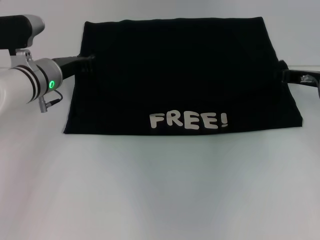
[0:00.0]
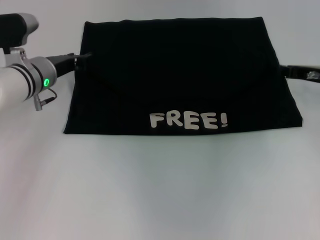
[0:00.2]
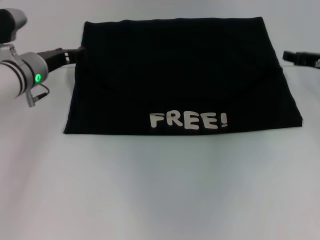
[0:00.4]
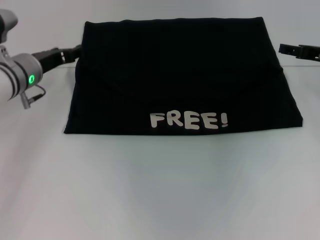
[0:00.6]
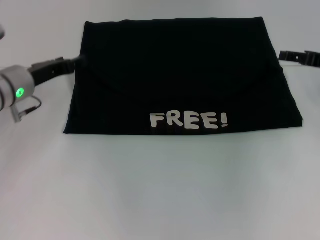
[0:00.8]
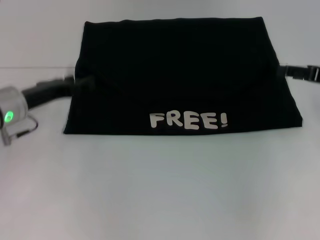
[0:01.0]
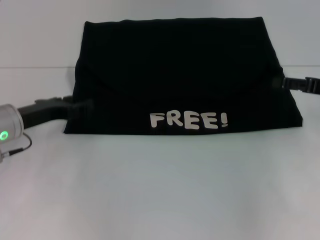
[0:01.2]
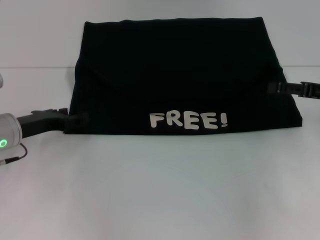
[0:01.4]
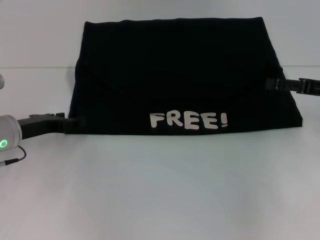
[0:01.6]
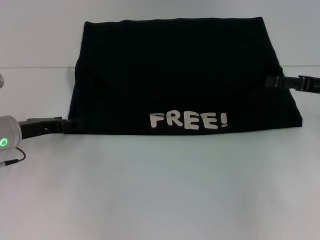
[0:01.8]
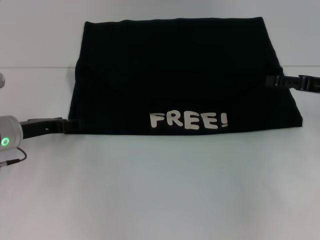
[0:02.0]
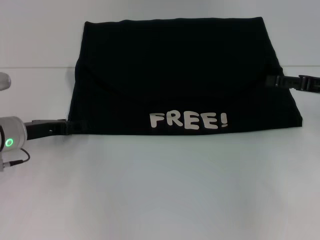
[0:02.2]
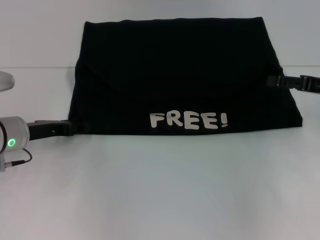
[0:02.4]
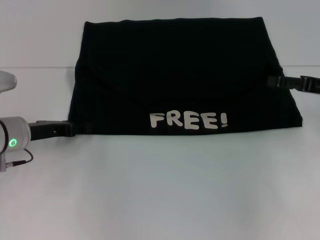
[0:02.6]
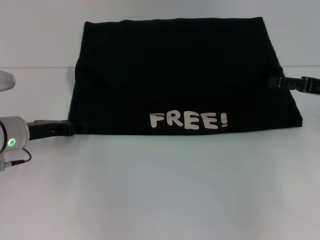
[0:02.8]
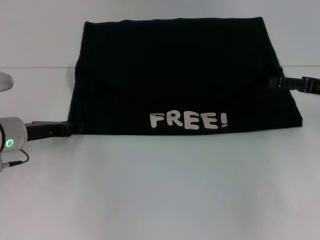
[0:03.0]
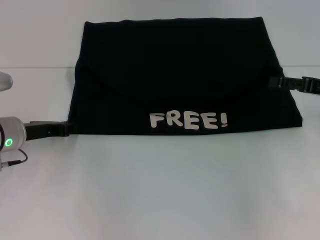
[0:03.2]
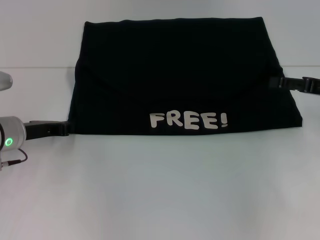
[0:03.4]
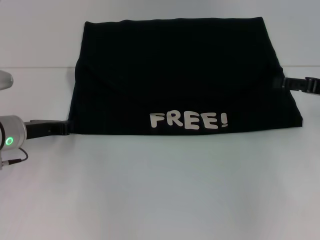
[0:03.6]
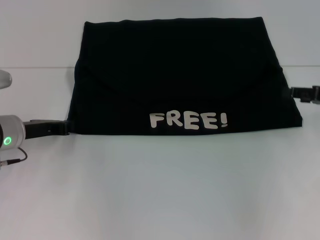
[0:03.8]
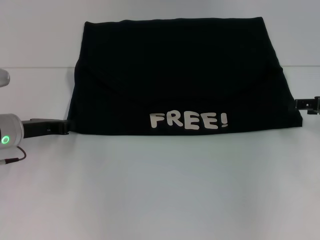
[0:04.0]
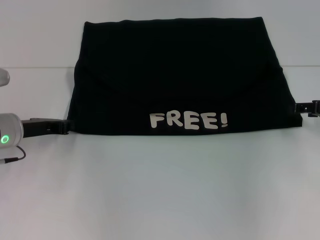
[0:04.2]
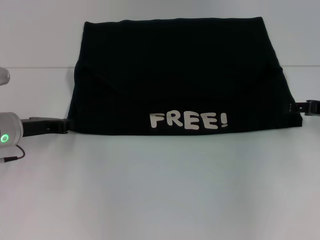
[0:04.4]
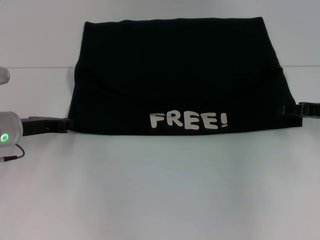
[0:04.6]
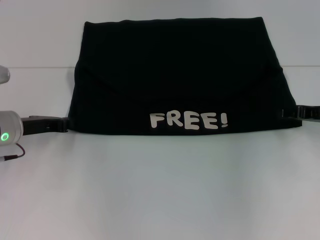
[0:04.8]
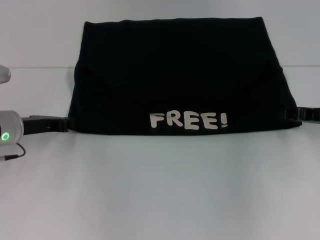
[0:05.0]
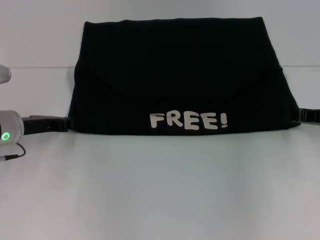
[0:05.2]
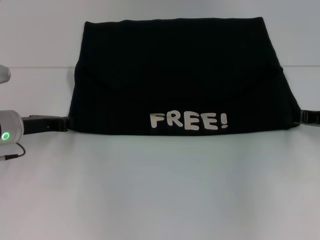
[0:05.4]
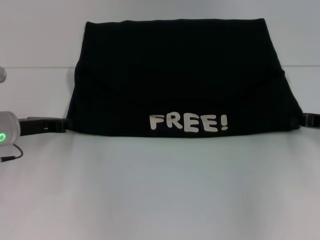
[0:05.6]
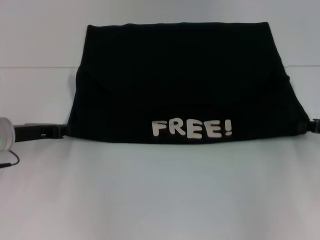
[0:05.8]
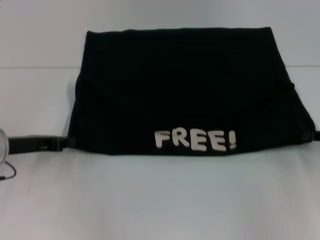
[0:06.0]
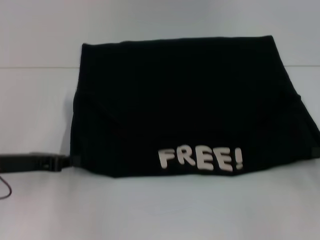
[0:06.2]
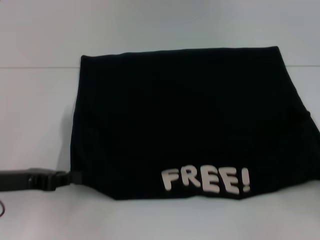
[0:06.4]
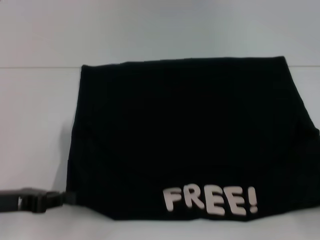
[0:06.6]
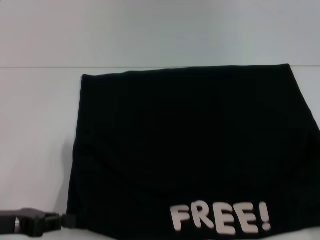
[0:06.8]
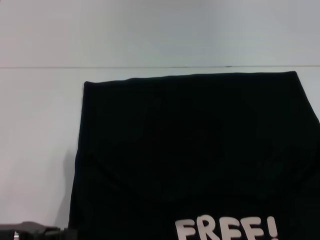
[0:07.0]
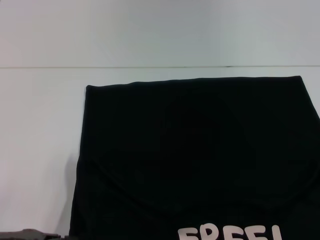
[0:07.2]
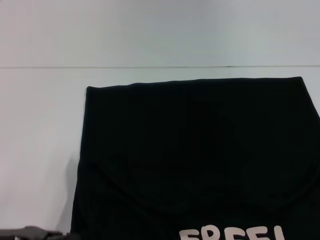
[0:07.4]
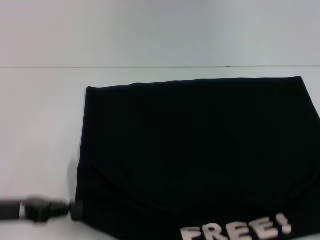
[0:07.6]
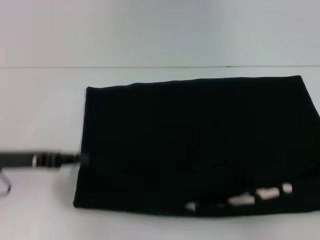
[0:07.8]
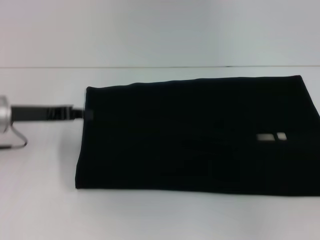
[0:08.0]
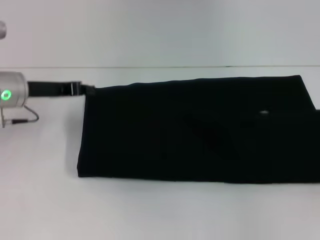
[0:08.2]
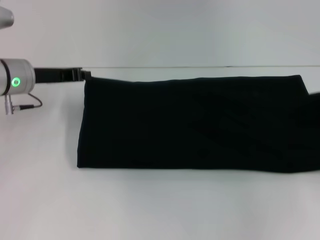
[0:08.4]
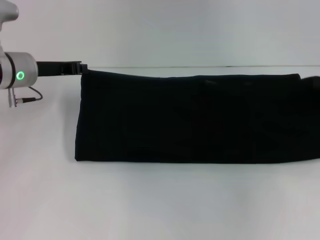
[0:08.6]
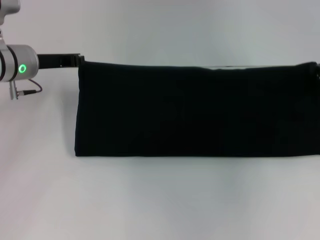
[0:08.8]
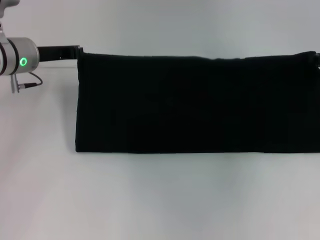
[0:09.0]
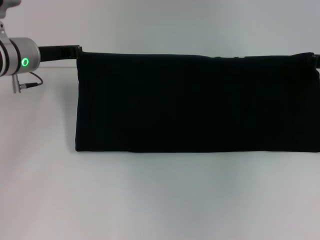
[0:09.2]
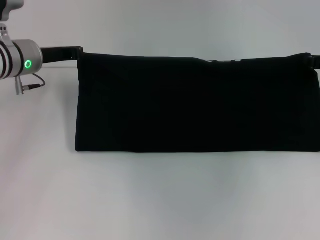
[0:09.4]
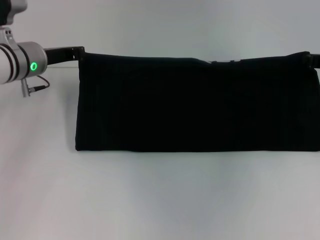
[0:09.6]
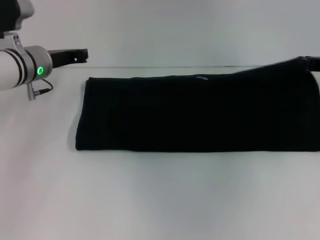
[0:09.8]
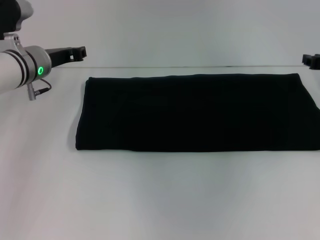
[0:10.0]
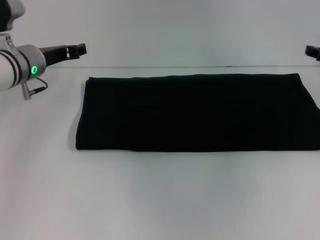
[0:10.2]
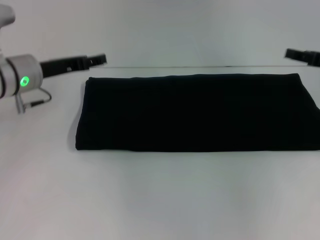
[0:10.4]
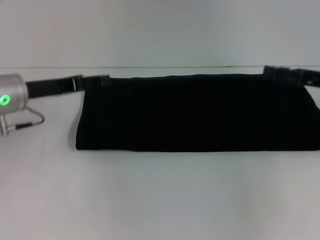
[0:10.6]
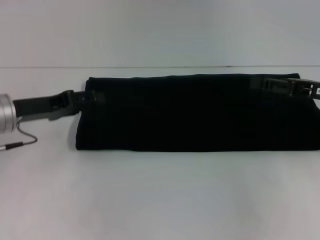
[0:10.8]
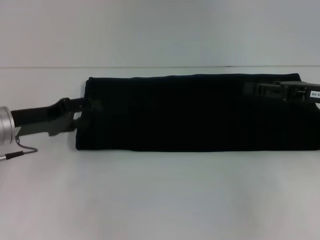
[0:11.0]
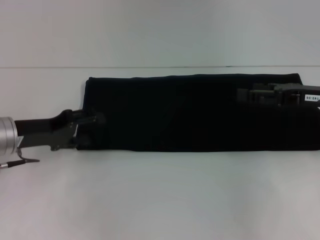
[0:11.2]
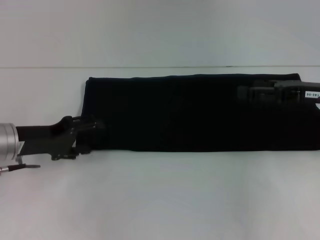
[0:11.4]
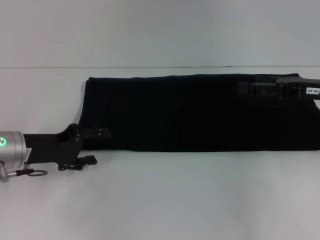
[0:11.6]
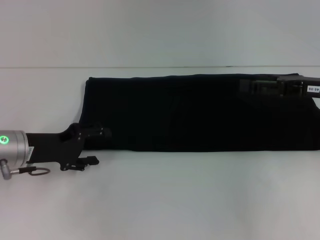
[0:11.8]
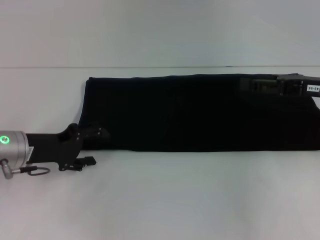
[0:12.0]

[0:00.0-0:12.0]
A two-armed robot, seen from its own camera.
Step, 0:00.4 to 0:07.4: Pull the clothes with your left hand.
Step, 0:00.4 to 0:07.4: Pull the clothes with your right hand.
Step, 0:07.6 to 0:09.8: Fold the clothes with your right hand.
0:00.0 to 0:01.6: The left gripper is displaced backward and to the left by about 10 cm, and opens its fingers. Meanwhile the right gripper travels backward by about 5 cm, and opens up.
0:01.6 to 0:03.0: The grippers move only a little.
0:03.0 to 0:04.4: The left gripper closes its fingers.
0:04.4 to 0:06.0: The right gripper goes roughly 5 cm backward, and closes its fingers.
0:06.0 to 0:07.6: The right gripper travels backward and to the right by approximately 20 cm. The left gripper shifts roughly 10 cm backward.
0:07.6 to 0:09.0: Both grippers travel together forward, roughly 25 cm.
0:09.0 to 0:10.4: The right gripper opens up. The left gripper opens up.
0:10.4 to 0:12.0: The left gripper heads backward and downward, covering some 10 cm; the right gripper ends up about 5 cm from where it was, and opens up.

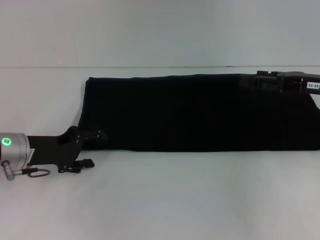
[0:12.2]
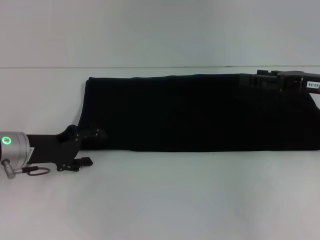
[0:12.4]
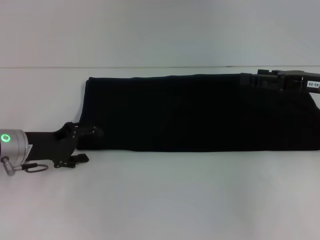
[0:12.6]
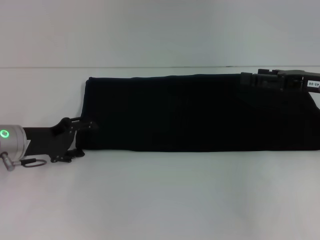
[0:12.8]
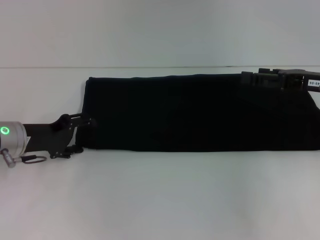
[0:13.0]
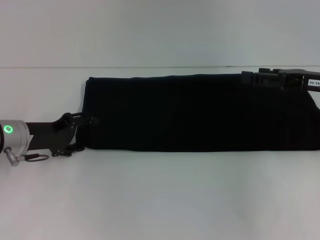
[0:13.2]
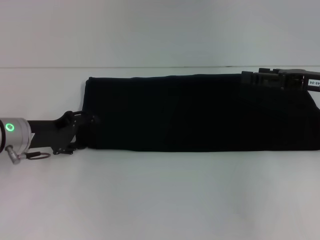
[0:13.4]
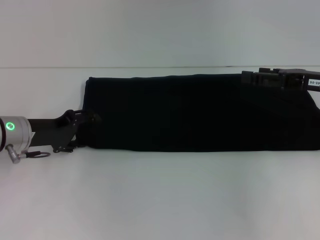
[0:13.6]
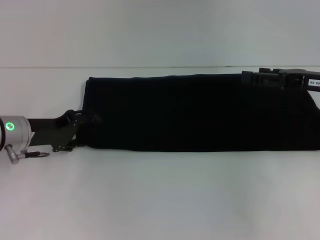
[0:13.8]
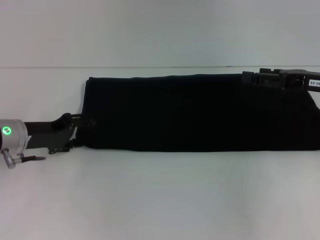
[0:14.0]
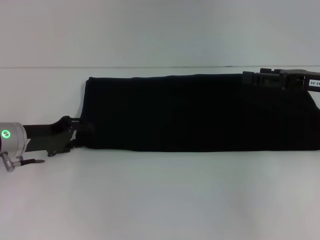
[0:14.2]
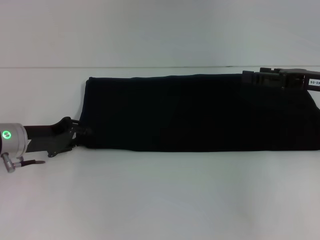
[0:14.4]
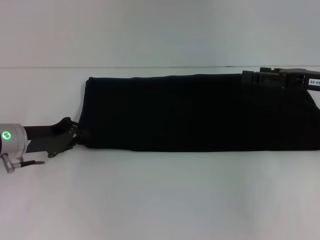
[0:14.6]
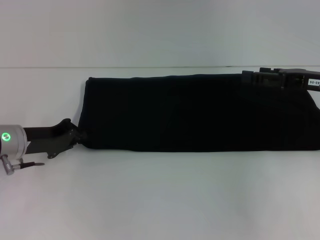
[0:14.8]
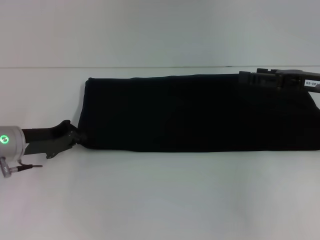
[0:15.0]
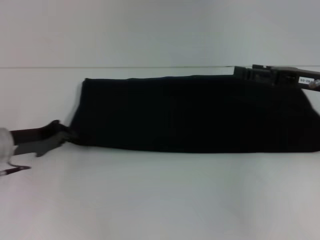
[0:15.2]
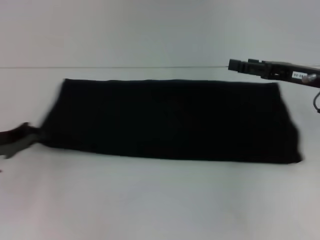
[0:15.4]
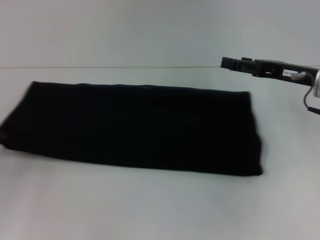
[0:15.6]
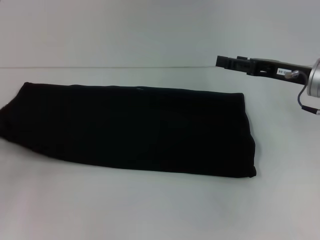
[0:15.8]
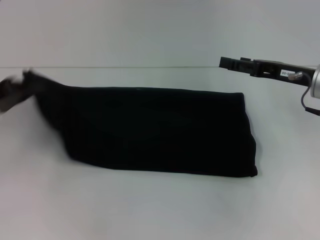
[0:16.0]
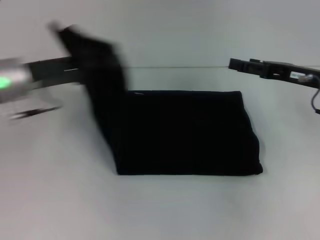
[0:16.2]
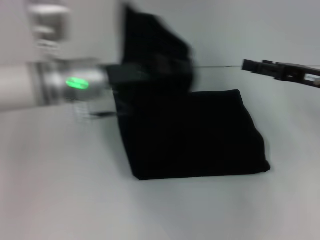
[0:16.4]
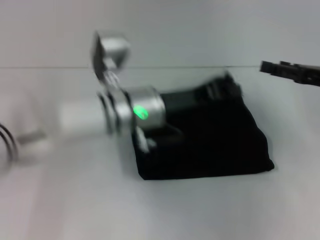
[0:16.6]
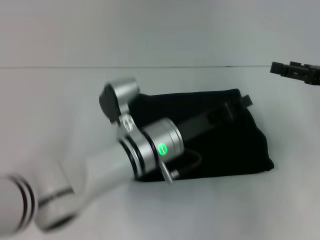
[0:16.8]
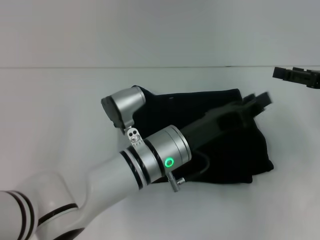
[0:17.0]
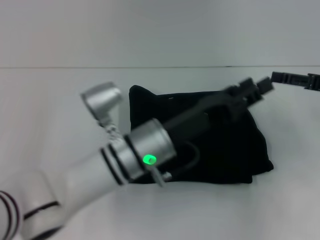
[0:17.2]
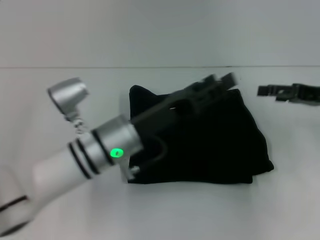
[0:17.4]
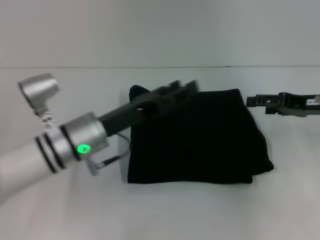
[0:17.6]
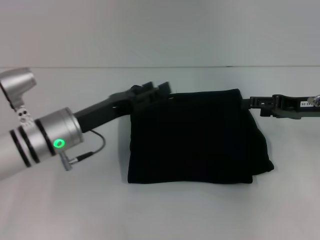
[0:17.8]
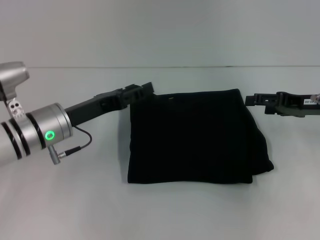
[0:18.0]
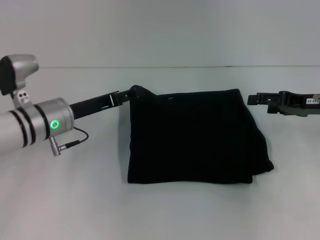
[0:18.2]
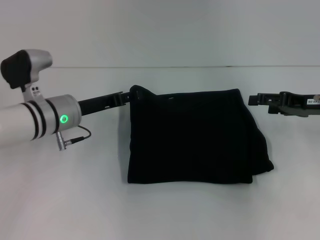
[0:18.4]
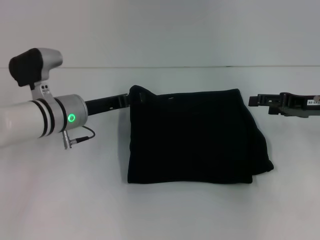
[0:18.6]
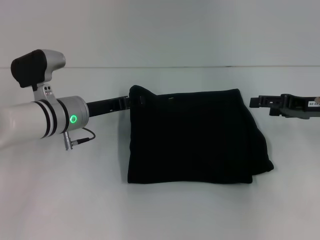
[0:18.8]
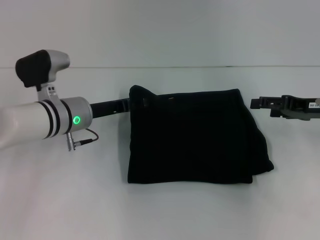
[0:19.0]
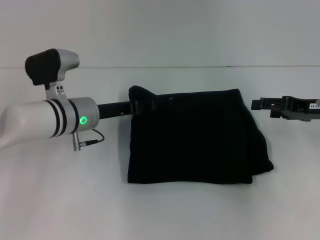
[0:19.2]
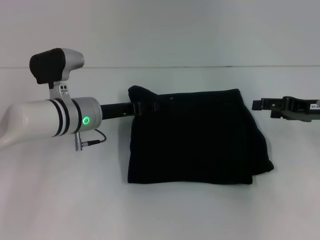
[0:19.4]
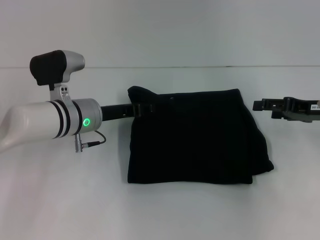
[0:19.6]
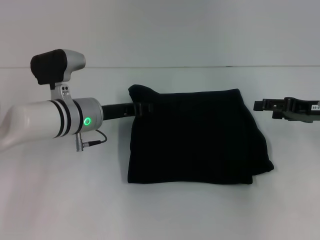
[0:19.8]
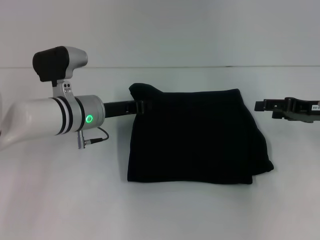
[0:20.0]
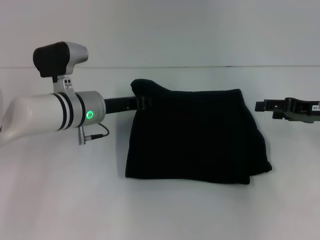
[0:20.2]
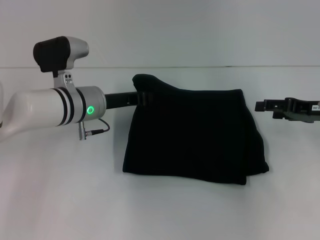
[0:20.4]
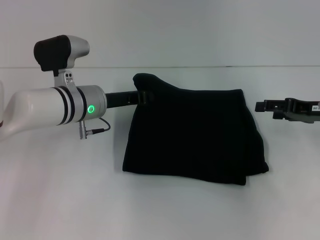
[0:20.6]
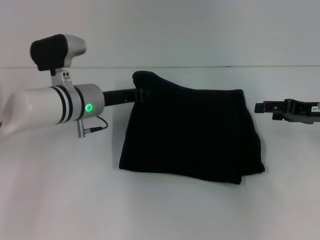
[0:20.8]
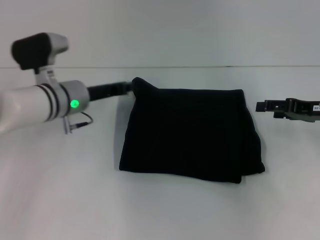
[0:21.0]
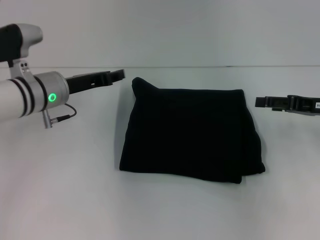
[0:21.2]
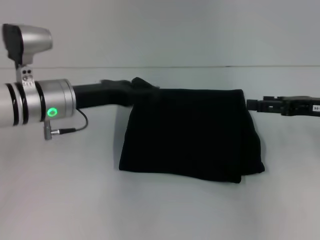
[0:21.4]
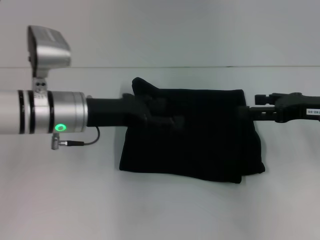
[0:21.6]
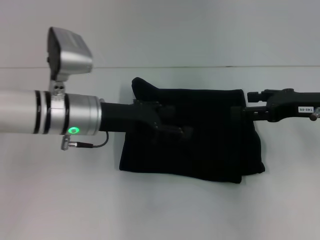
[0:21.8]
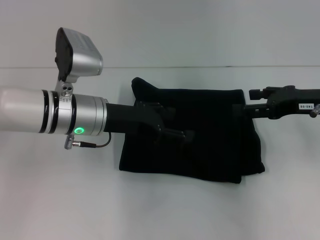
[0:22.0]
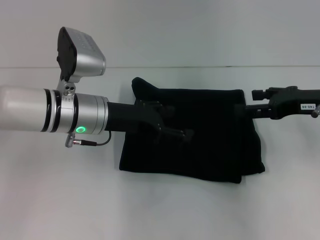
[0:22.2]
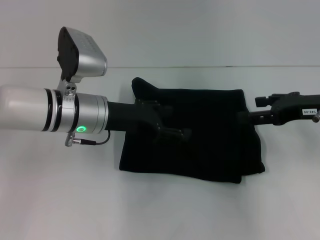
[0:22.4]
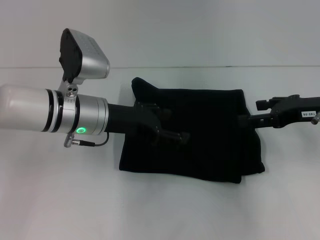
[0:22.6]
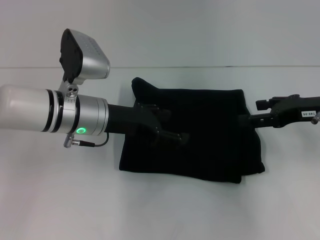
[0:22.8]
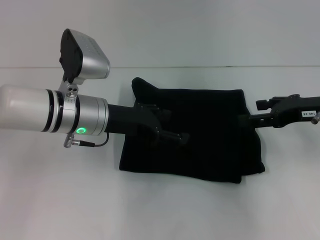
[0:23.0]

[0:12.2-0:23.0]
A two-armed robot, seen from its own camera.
Step, 0:12.2 to 0:16.8: Fold the clothes with your left hand.
0:12.2 to 0:13.8: The grippers stay close to where they were, moving slightly.
0:13.8 to 0:15.2: The left gripper closes up.
0:15.2 to 0:16.8: The left gripper is displaced to the right by some 25 cm. The right gripper moves to the right, roughly 5 cm.
0:16.8 to 0:18.4: The left gripper goes about 15 cm to the left, and opens up.
0:18.4 to 0:20.0: The left gripper closes its fingers.
0:20.0 to 0:21.4: The left gripper moves upward, some 5 cm.
0:21.4 to 0:23.0: The left gripper opens.
